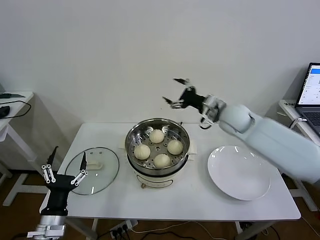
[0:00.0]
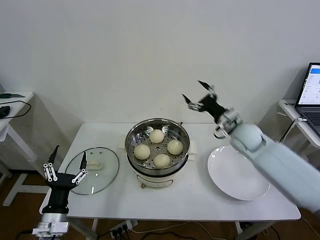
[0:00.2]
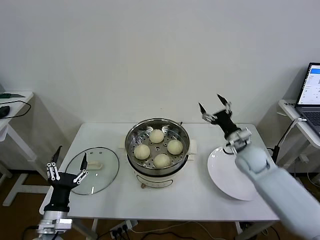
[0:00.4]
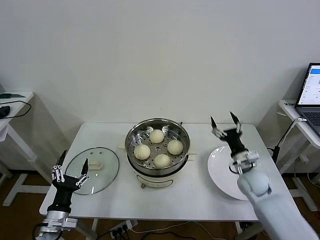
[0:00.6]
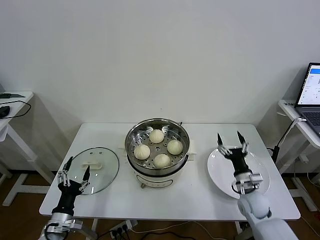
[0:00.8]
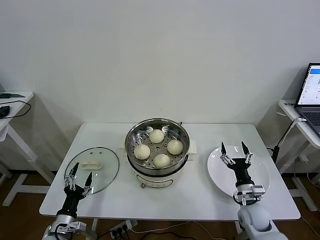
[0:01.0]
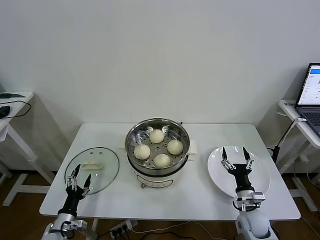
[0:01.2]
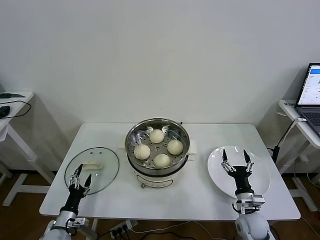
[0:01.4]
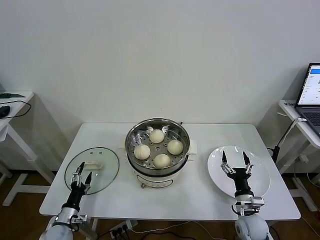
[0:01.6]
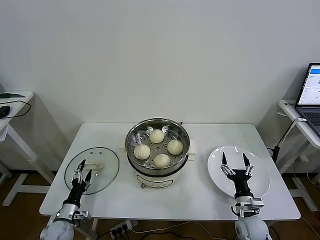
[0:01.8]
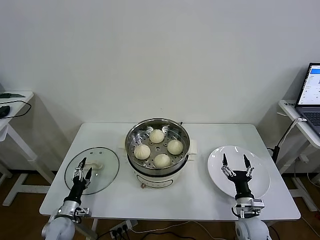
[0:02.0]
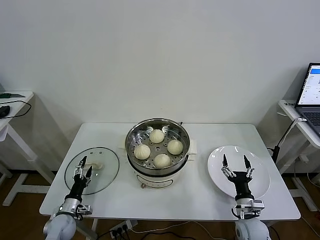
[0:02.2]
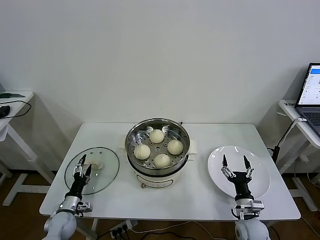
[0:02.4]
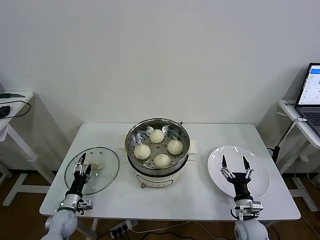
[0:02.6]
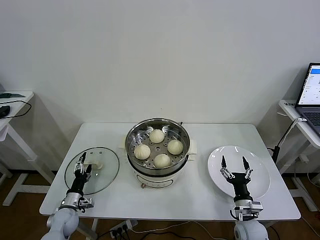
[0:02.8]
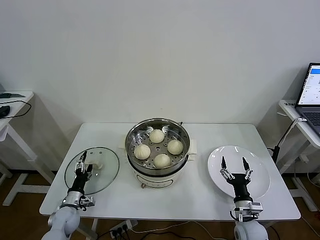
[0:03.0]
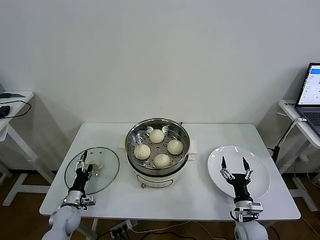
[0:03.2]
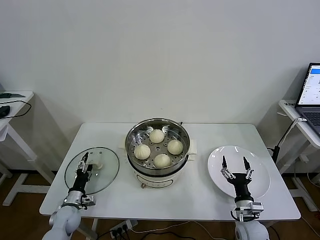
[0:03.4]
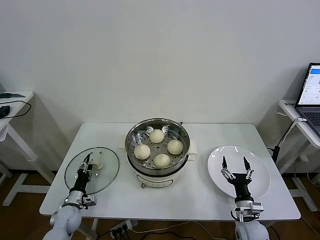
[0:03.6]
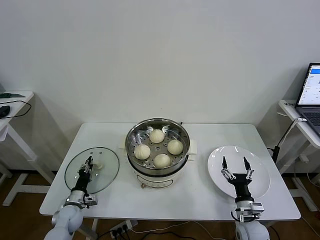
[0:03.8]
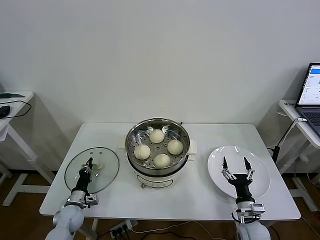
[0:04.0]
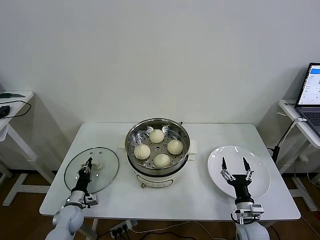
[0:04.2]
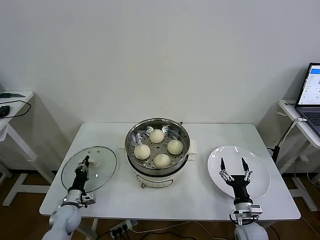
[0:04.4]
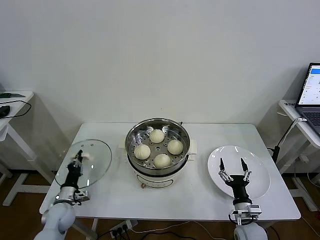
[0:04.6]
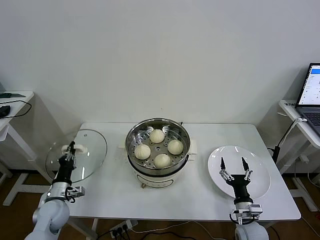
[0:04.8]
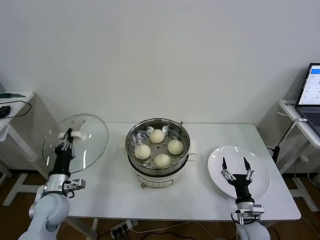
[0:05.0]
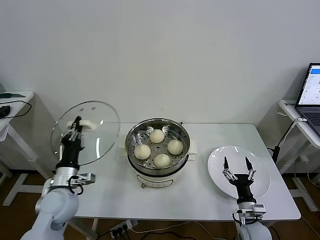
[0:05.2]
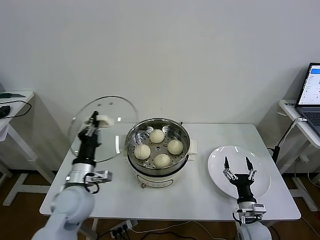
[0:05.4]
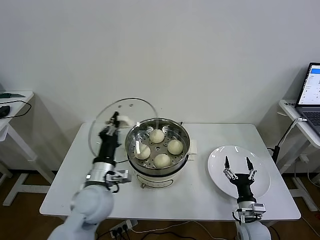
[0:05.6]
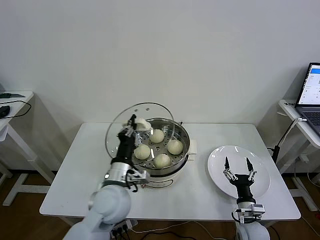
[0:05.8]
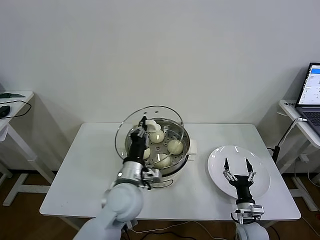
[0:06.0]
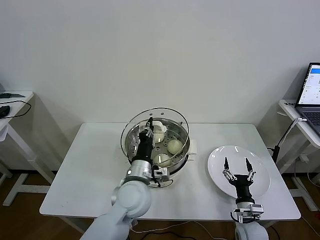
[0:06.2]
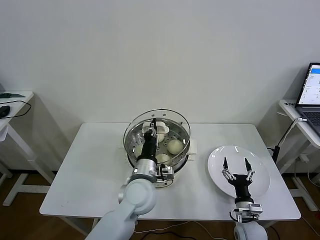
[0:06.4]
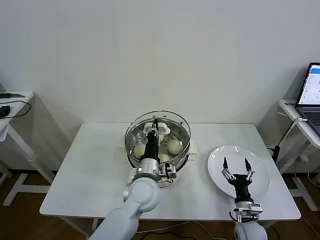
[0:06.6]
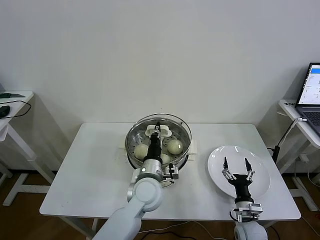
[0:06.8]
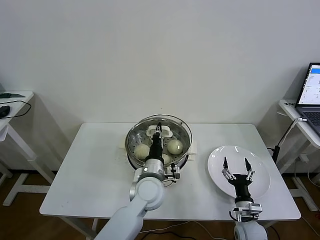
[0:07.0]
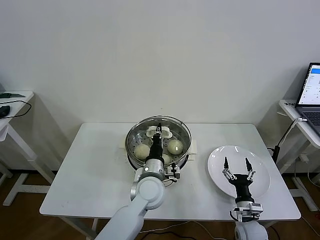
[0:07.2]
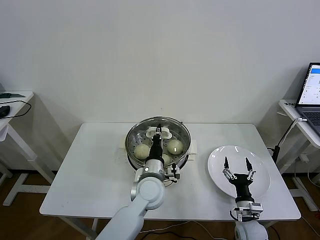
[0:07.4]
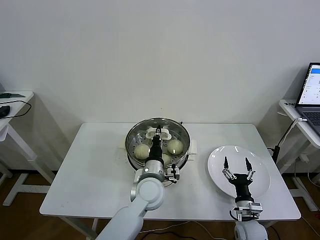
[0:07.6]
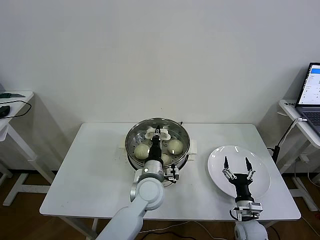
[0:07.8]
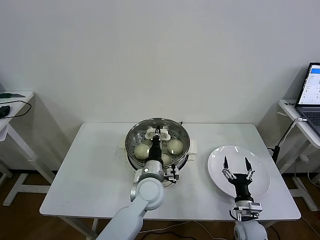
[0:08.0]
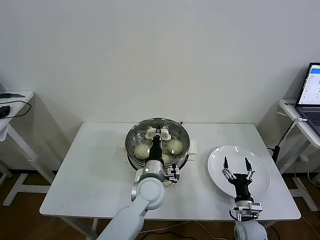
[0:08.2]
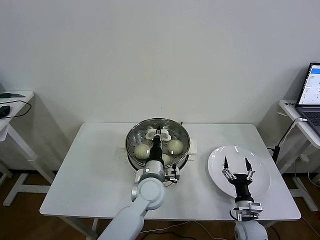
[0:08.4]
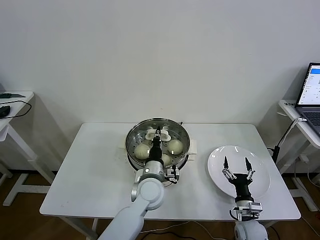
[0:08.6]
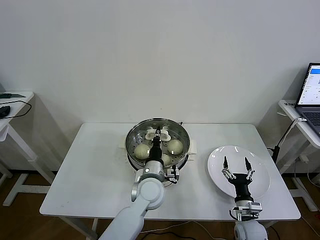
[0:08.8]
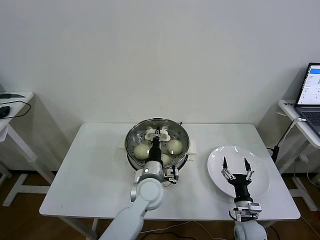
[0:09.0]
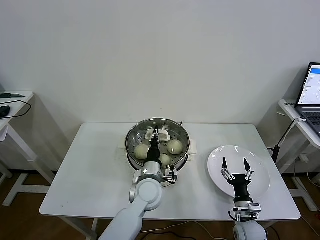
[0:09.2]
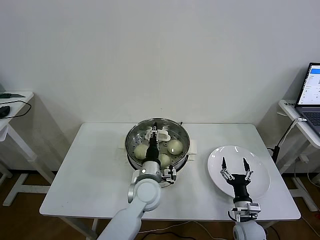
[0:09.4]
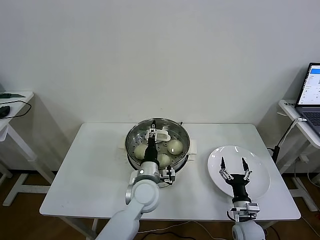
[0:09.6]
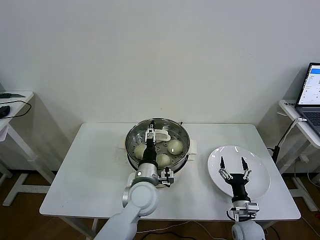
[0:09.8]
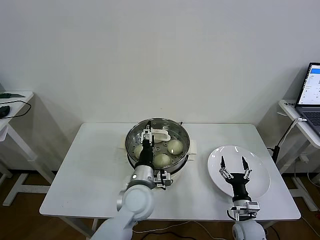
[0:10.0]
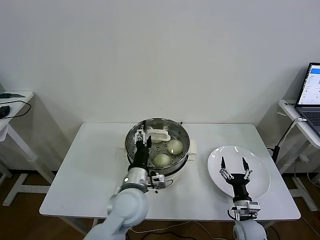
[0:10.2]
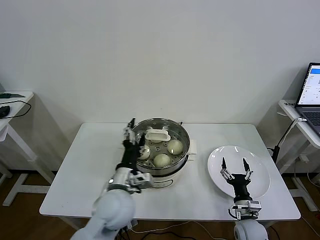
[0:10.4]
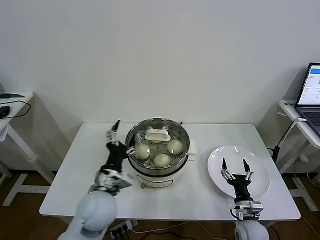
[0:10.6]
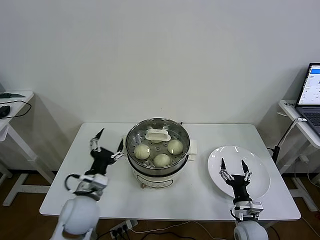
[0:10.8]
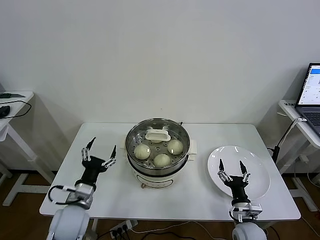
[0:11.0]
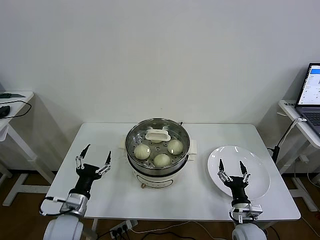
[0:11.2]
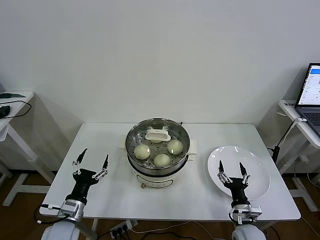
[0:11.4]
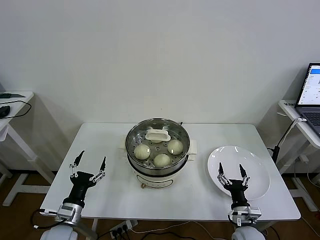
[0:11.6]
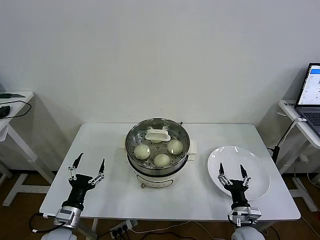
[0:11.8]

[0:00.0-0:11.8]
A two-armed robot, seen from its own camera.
Task of the whole recording: take steamed baozi put them in steamer then cover it.
Step, 0:00.0 to 0:04.4: Grasp the pot lid with left gripper.
Step, 0:04.6 to 0:09.4: Place the pot lid on the steamer with left gripper.
0:00.0 to 0:01.4: The left gripper is displaced downward and to the left by roughly 15 cm; the right gripper shifts some 35 cm downward and backward.
0:01.4 to 0:03.0: The left gripper moves forward, about 10 cm.
0:03.0 to 0:04.4: The left gripper closes its fingers.
0:04.4 to 0:06.0: The left gripper heads to the right and upward, covering about 35 cm.
0:06.0 to 0:07.4: The left gripper goes some 10 cm to the right and downward.
0:07.4 to 0:08.8: The grippers move only a little.
0:08.8 to 0:10.4: The left gripper goes roughly 10 cm to the left, upward and backward, and opens.
0:10.4 to 0:11.8: The left gripper moves to the left and downward, about 25 cm.

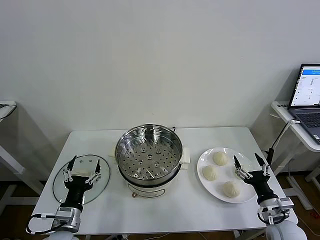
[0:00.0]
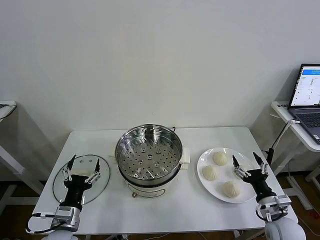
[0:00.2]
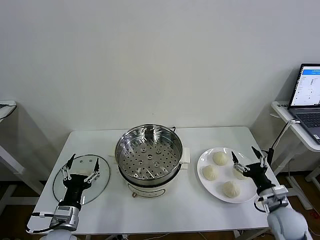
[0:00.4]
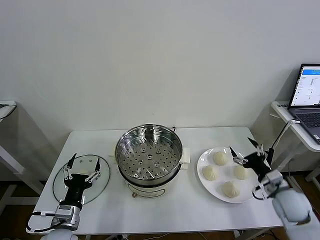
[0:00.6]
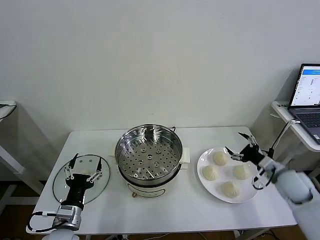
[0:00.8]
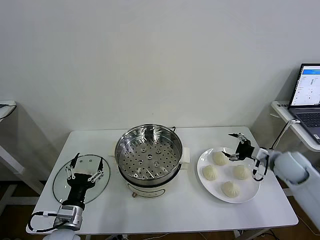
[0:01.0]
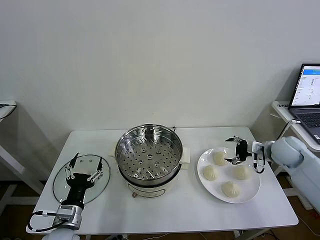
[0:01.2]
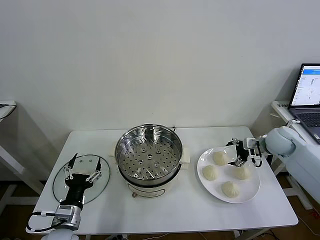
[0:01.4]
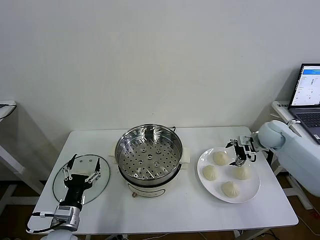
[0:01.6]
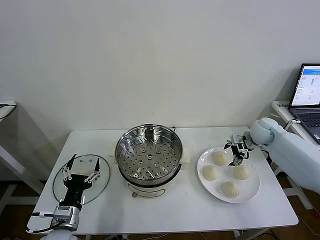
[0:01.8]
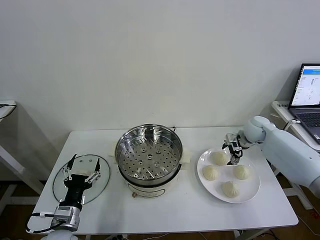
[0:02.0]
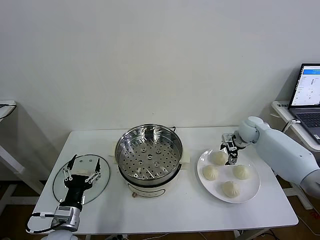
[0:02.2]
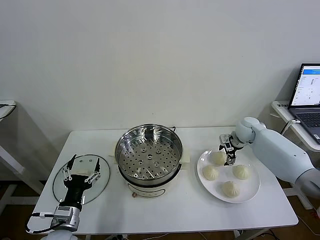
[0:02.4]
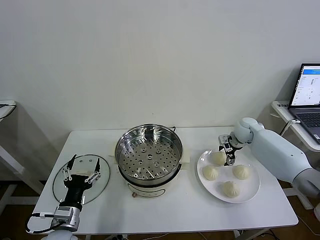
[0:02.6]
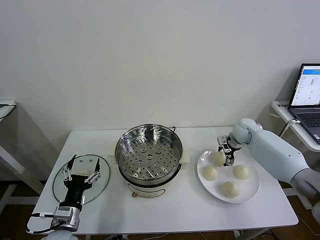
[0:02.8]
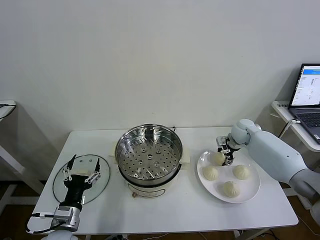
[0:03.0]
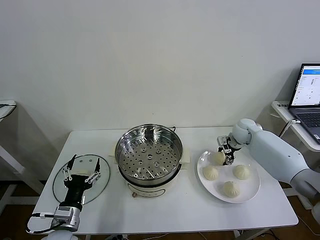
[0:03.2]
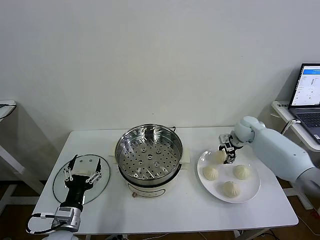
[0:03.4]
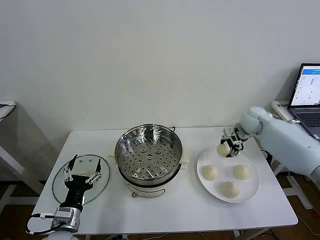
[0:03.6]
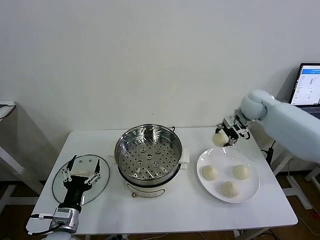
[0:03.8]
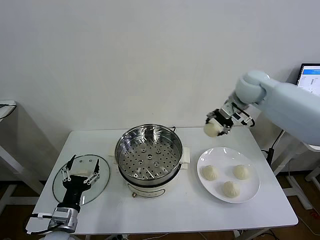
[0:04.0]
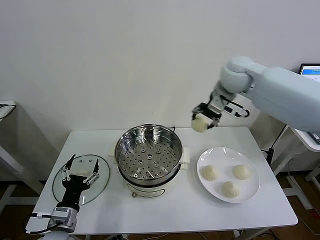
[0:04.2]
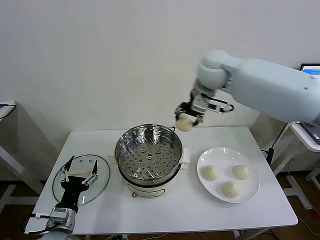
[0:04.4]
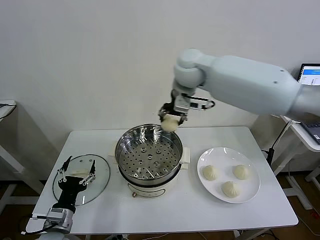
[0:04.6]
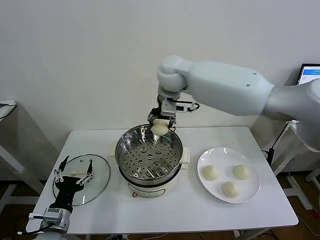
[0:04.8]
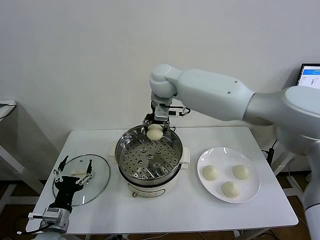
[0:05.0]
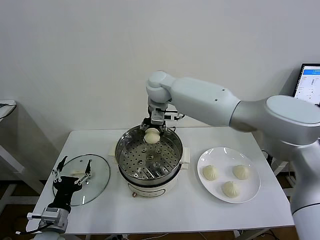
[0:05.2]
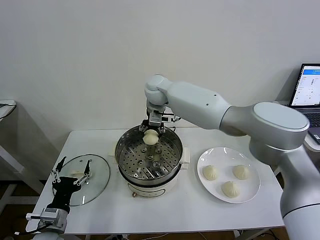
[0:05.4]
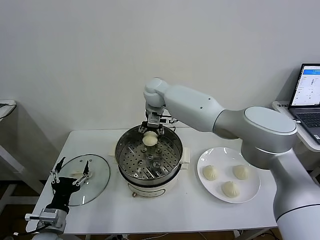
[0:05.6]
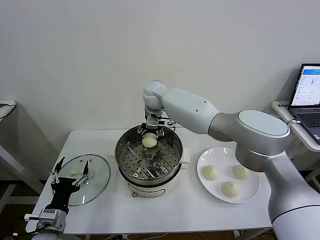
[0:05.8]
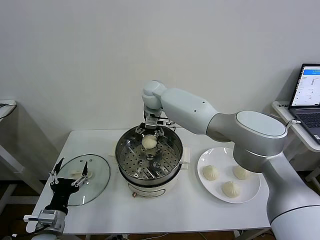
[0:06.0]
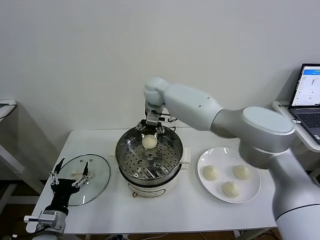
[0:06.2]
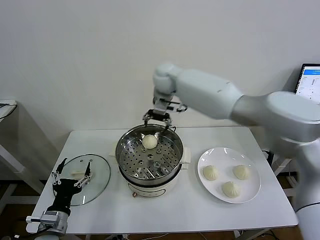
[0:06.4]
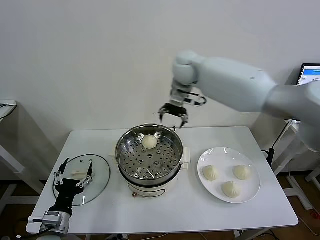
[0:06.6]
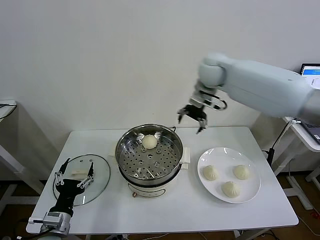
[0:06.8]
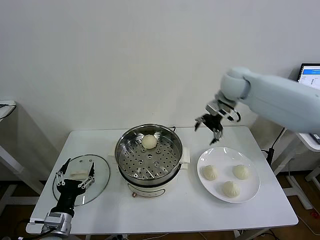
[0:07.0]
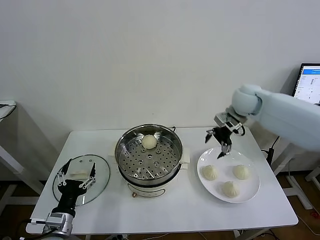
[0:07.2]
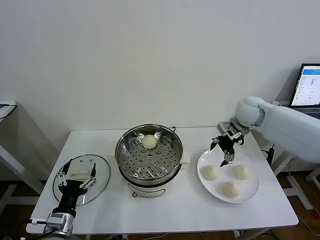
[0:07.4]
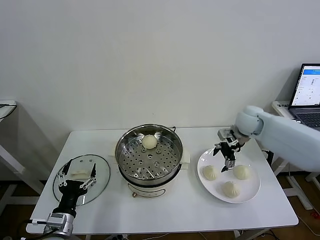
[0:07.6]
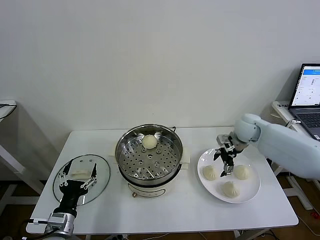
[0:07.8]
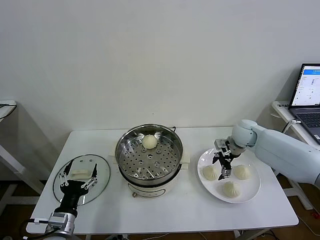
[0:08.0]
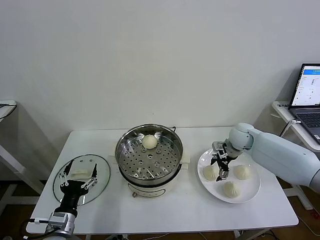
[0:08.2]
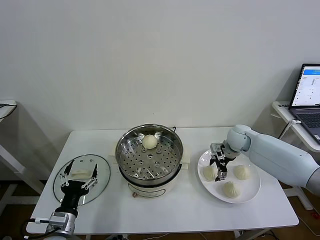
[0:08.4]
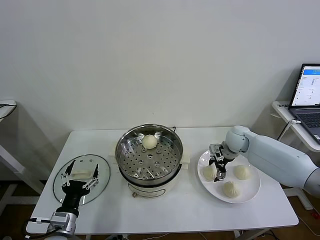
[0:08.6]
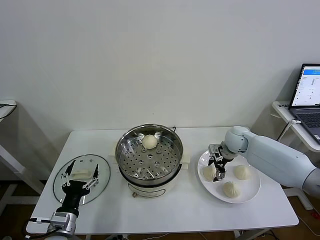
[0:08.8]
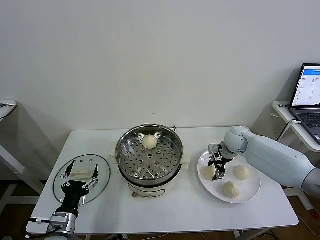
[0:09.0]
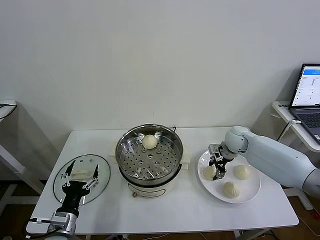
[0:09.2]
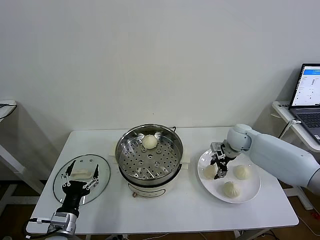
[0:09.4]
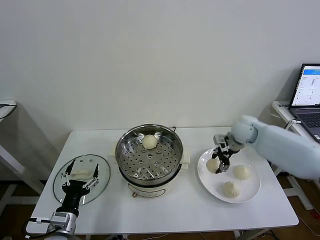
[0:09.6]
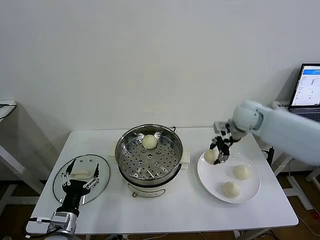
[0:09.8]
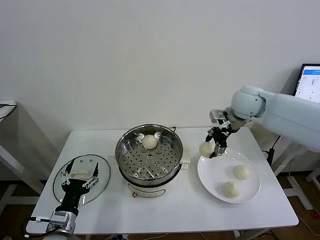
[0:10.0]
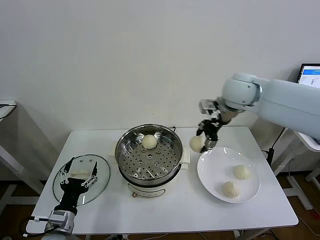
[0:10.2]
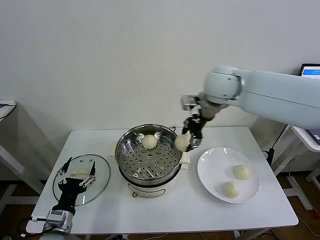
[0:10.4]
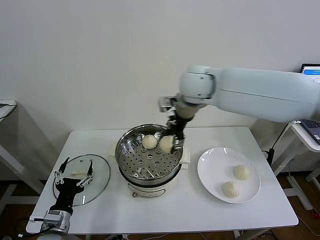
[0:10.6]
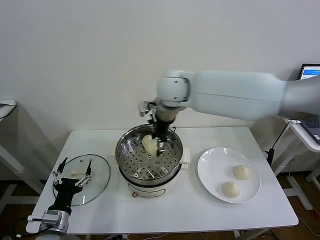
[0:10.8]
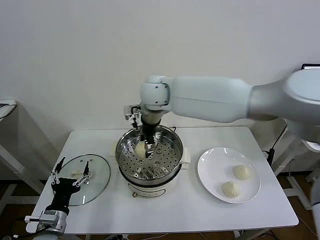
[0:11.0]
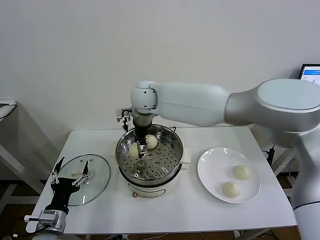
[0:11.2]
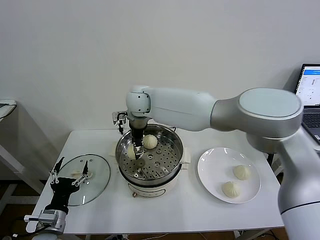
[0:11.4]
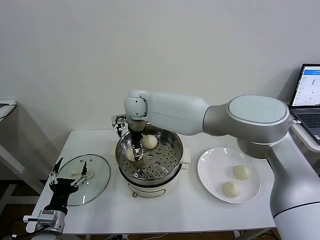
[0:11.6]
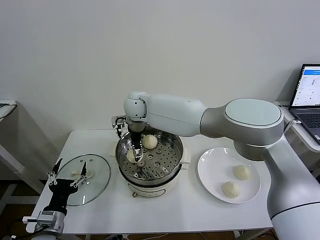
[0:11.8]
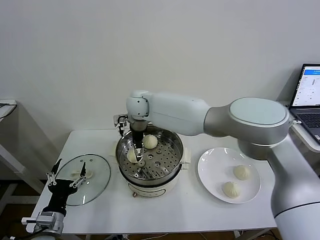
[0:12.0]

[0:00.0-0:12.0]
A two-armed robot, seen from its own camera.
Task of the whole recording: take steamed baozi put them in steamer then cover it.
Step, 0:00.0 to 0:02.8: Grasp the baozi in the plate with right gripper.
Step, 0:03.2 to 0:05.8: Place the baozi on the steamer with right gripper.
Step, 0:06.2 to 0:09.0: Grasp the baozi in the plate with right gripper.
Step, 0:09.2 to 0:11.8: Place the baozi on the steamer with right gripper.
0:01.6 to 0:03.0: The right gripper goes roughly 5 cm to the left and forward, and closes up.
0:03.0 to 0:04.4: The right gripper moves upward and to the left, about 35 cm.
0:04.4 to 0:06.0: The right gripper heads downward, to the left and forward, covering roughly 20 cm, and opens its fingers.
0:06.0 to 0:07.6: The right gripper shifts approximately 35 cm to the right.
0:07.6 to 0:09.0: The right gripper moves downward, some 10 cm, and closes up.
0:09.0 to 0:10.4: The right gripper moves upward and to the left, roughly 30 cm.
0:10.4 to 0:12.0: The right gripper travels to the left and downward by approximately 20 cm, and opens its fingers.
